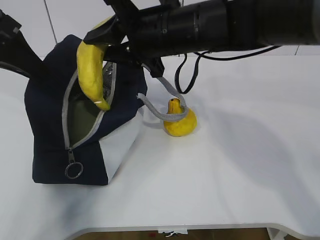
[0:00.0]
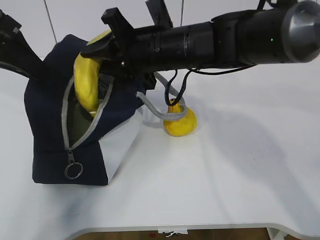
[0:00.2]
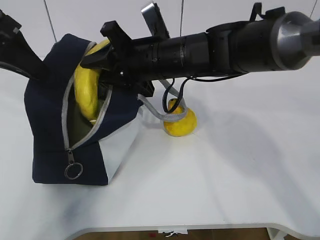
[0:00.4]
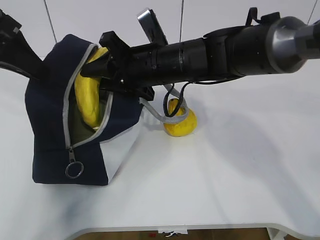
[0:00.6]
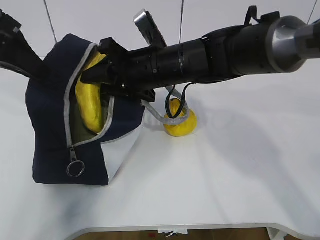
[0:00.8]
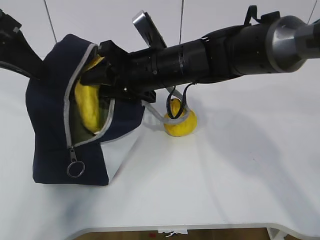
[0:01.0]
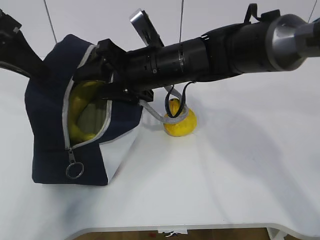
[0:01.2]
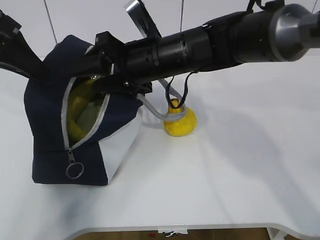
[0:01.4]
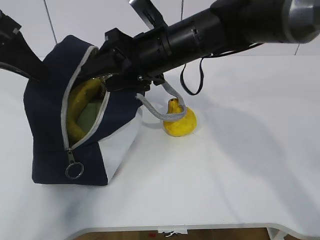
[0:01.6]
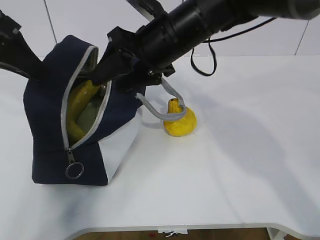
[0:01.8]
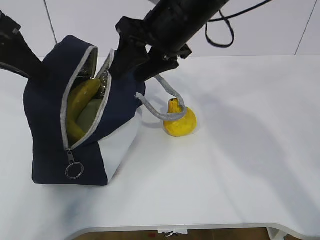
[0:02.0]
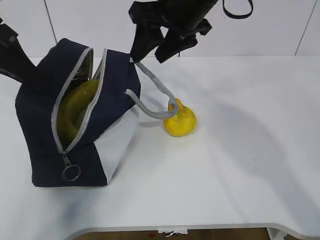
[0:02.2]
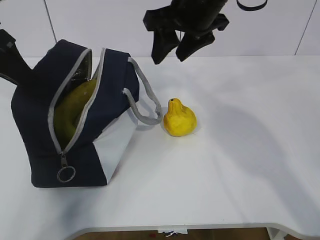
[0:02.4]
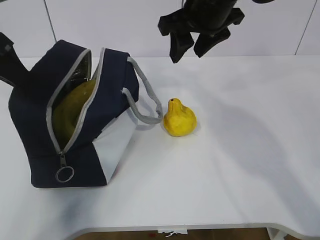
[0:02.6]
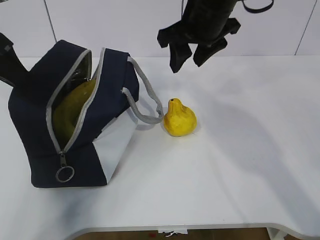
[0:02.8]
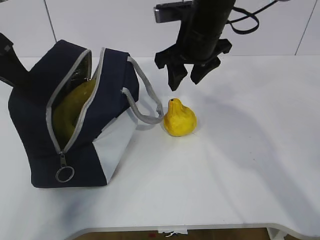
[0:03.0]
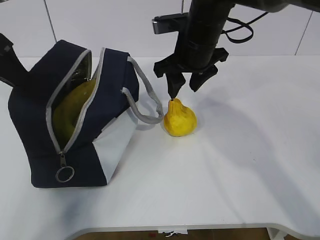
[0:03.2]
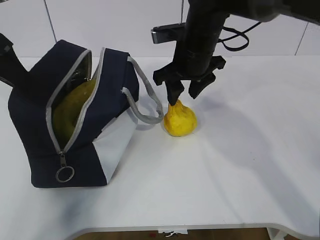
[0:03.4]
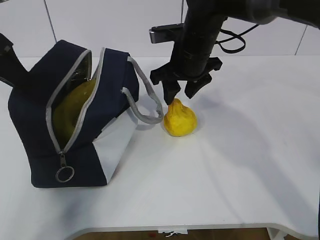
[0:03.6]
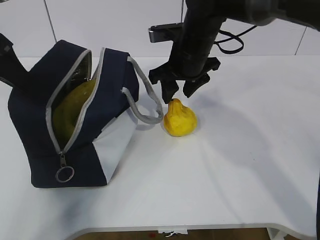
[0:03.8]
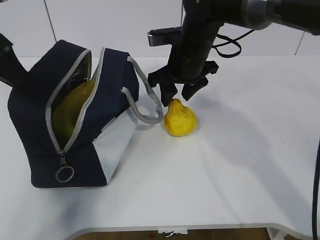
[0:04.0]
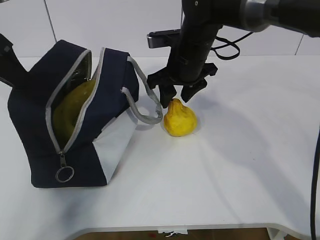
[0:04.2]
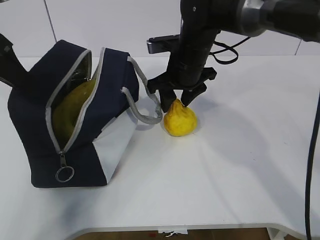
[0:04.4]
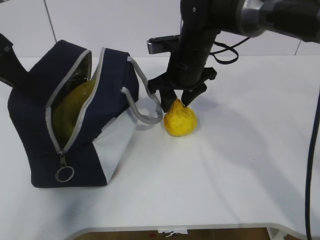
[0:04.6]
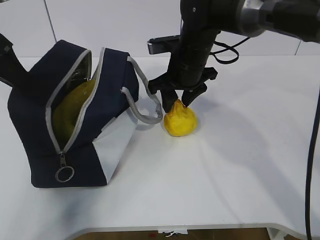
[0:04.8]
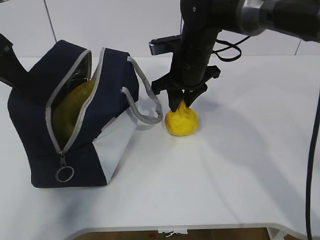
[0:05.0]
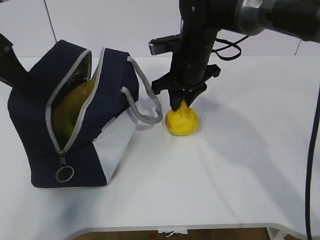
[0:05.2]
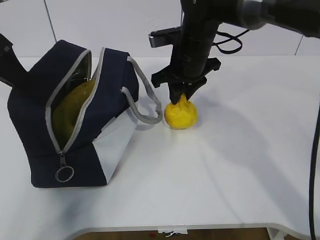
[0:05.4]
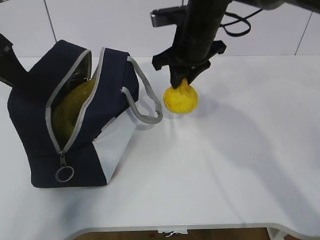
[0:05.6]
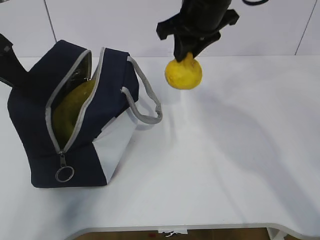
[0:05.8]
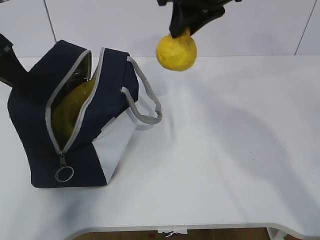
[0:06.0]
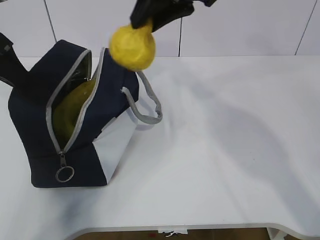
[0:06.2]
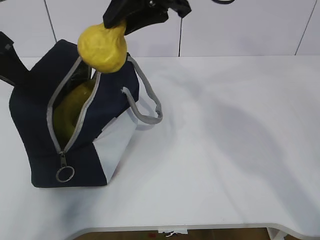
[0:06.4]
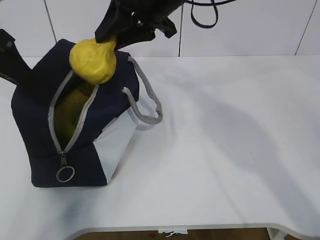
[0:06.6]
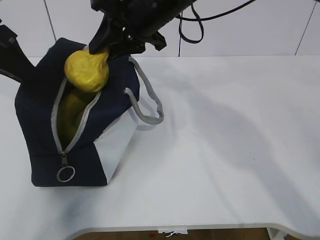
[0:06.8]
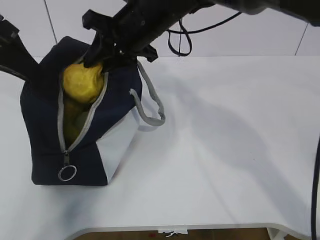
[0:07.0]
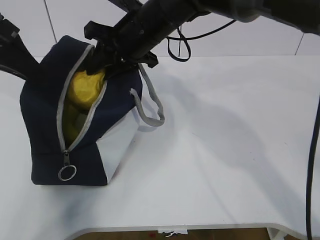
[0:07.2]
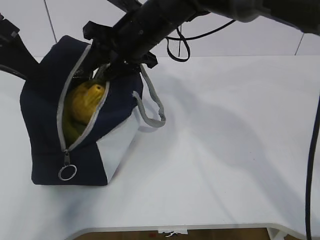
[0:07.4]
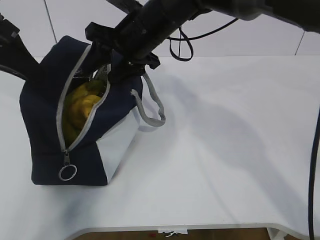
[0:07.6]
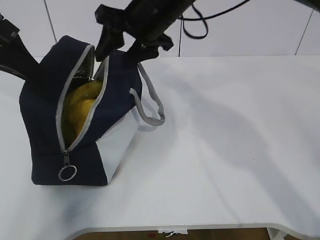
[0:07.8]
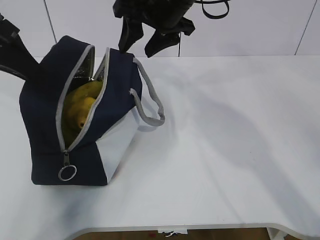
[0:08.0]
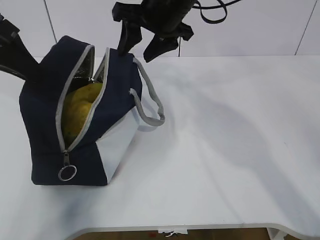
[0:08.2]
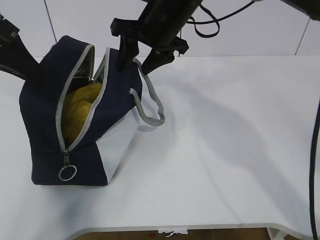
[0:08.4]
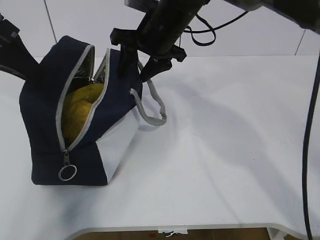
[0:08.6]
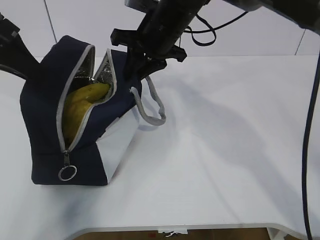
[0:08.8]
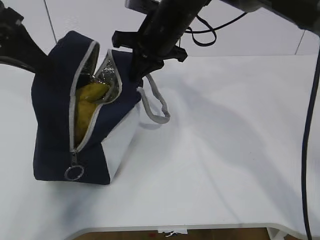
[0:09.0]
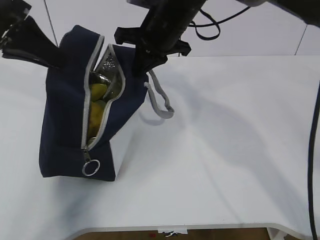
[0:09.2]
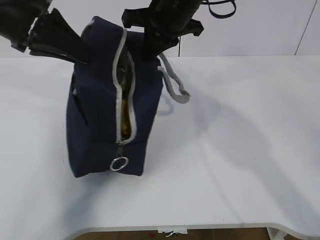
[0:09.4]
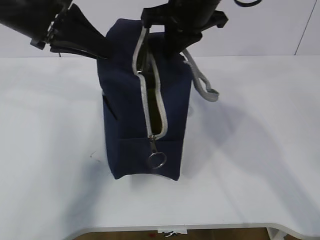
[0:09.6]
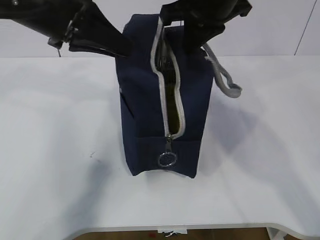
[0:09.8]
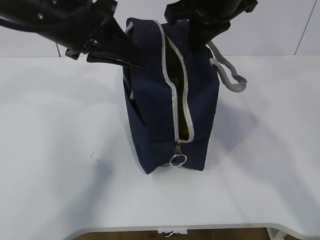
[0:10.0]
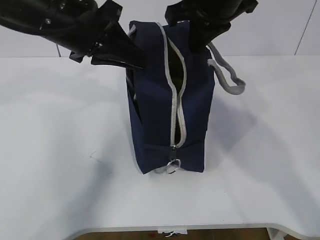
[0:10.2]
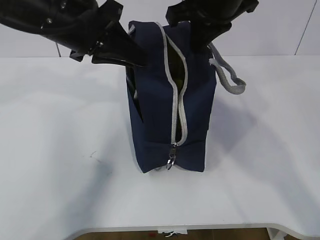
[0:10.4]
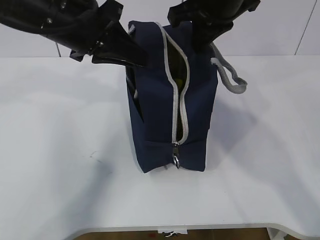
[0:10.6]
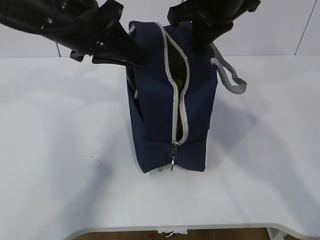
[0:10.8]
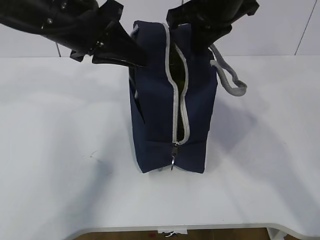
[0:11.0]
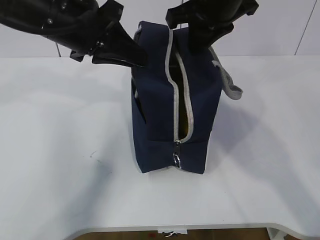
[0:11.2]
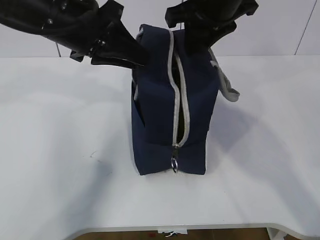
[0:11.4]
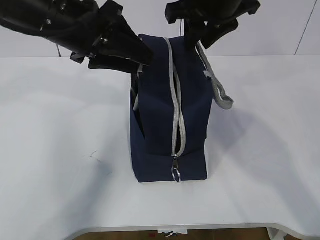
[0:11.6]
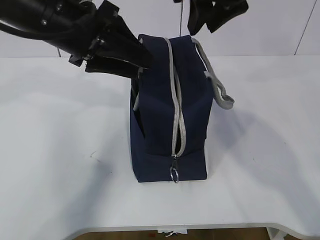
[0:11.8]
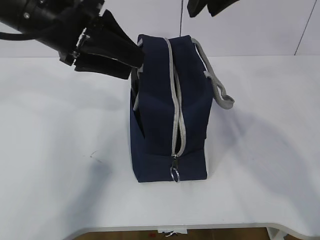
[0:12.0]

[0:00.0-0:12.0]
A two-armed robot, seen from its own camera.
Step, 0:01.6 to 0:05.0: Grasp the pear with the right gripper.
Step, 0:05.2 to 0:07.6: Place the pear into the package with the right gripper.
0:00.0 to 0:01.6: The right gripper opens its fingers.
0:01.6 to 0:03.0: The right gripper travels to the right by roughly 5 cm.
0:03.0 to 0:04.4: The right gripper is displaced downward by roughly 5 cm.
0:04.4 to 0:06.0: The right gripper goes about 15 cm upward.
0:06.0 to 0:07.6: The right gripper moves downward and to the left, about 15 cm, and opens its fingers.
0:07.6 to 0:09.0: The right gripper closes.
0:09.0 to 0:10.4: The left gripper moves to the right, about 10 cm; the right gripper heads upward, to the right and backward, covering some 10 cm.
0:10.4 to 0:12.0: The left gripper opens; the right gripper moves upward, some 5 cm, and opens its fingers.

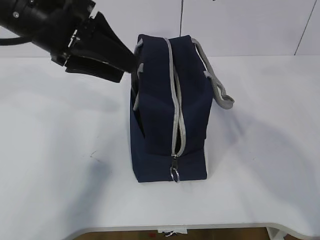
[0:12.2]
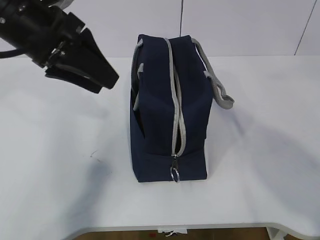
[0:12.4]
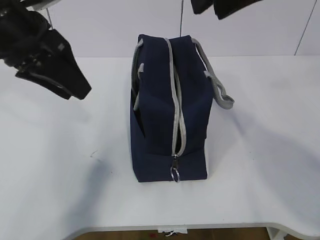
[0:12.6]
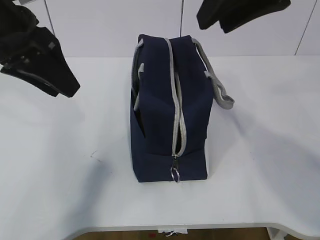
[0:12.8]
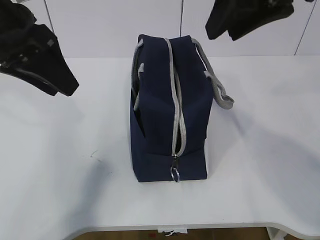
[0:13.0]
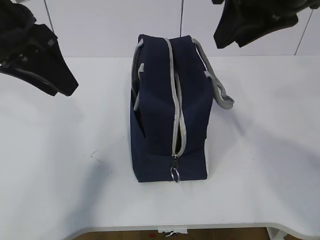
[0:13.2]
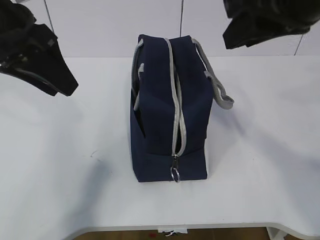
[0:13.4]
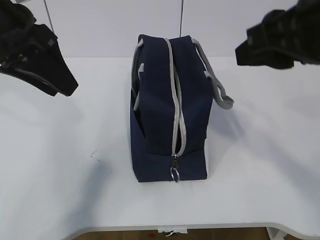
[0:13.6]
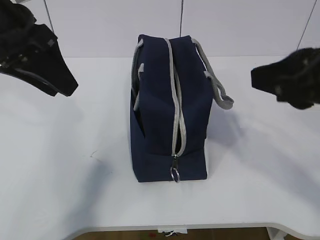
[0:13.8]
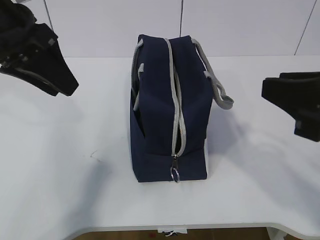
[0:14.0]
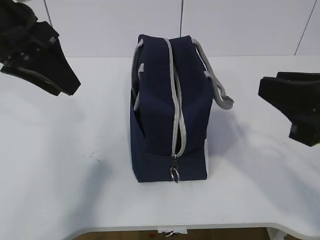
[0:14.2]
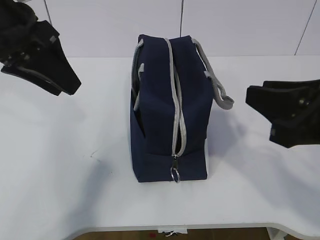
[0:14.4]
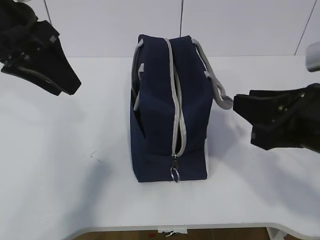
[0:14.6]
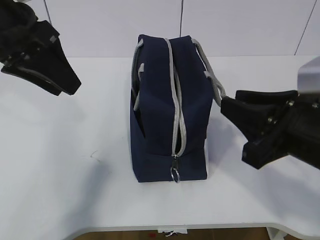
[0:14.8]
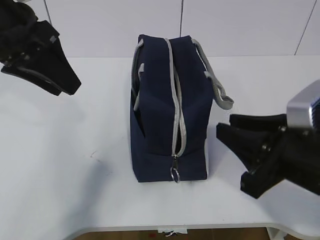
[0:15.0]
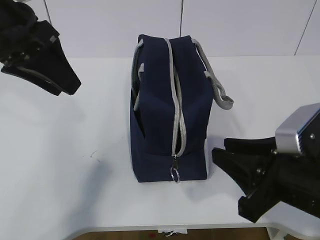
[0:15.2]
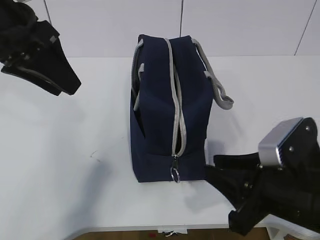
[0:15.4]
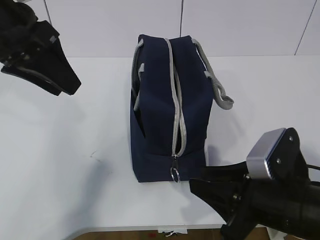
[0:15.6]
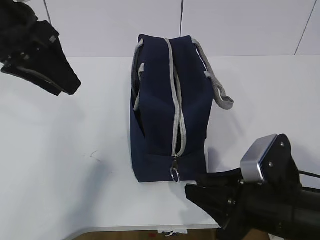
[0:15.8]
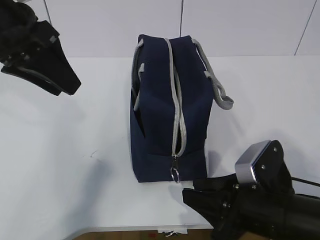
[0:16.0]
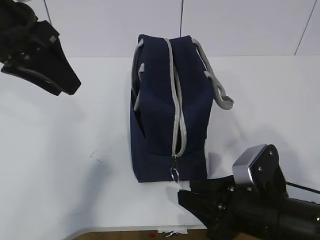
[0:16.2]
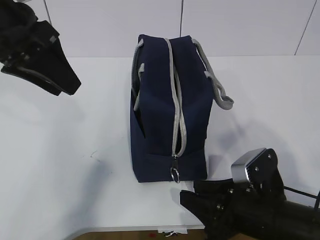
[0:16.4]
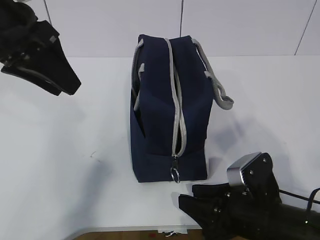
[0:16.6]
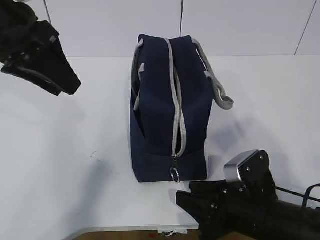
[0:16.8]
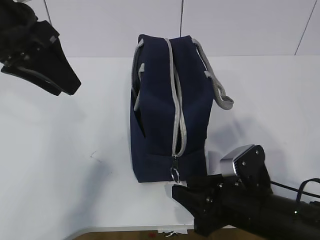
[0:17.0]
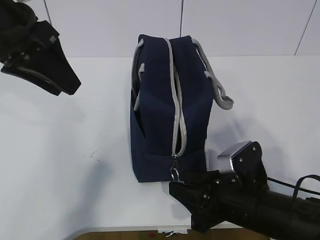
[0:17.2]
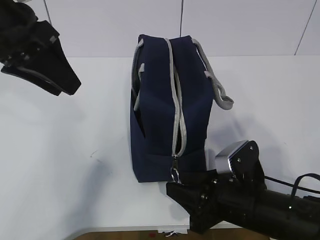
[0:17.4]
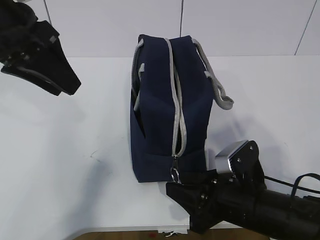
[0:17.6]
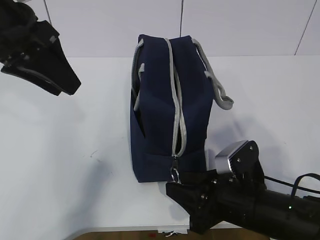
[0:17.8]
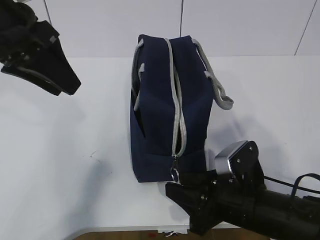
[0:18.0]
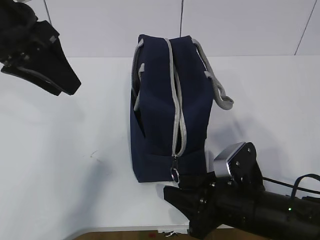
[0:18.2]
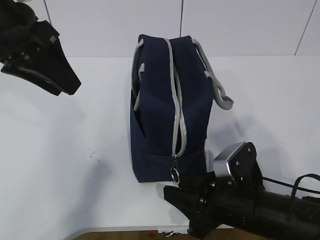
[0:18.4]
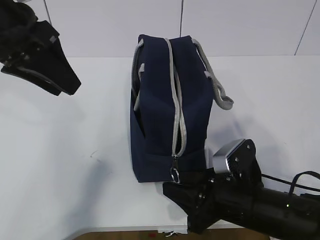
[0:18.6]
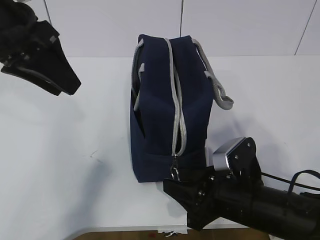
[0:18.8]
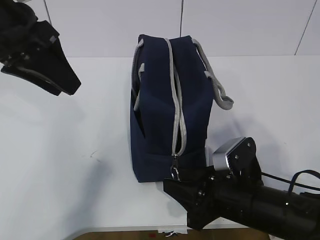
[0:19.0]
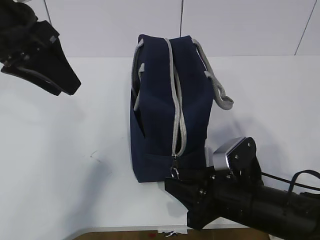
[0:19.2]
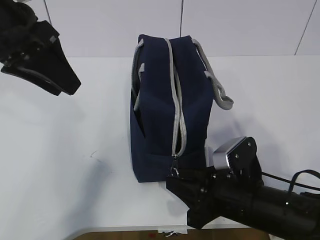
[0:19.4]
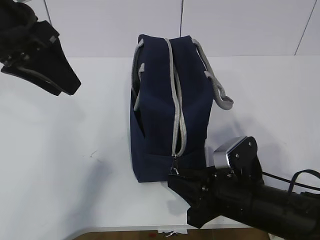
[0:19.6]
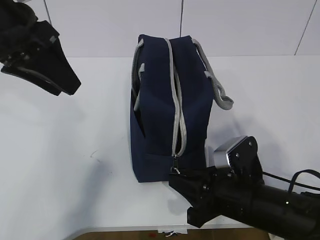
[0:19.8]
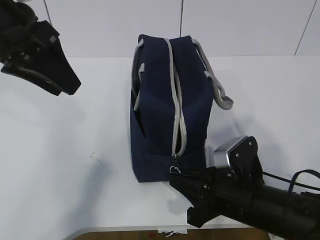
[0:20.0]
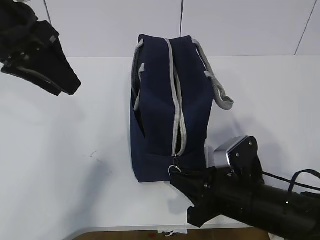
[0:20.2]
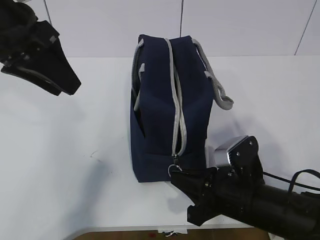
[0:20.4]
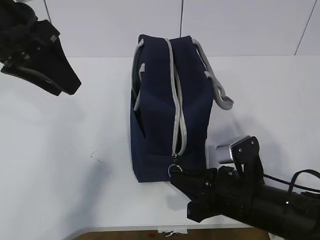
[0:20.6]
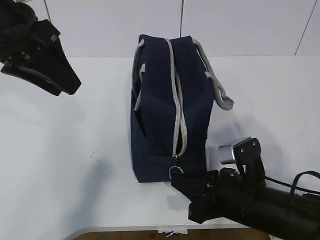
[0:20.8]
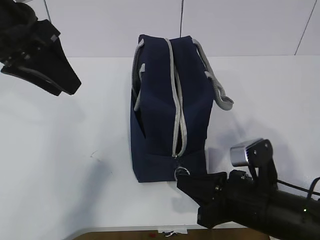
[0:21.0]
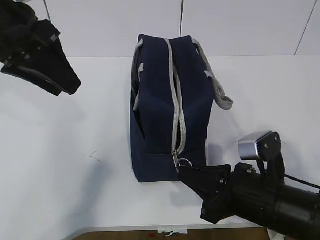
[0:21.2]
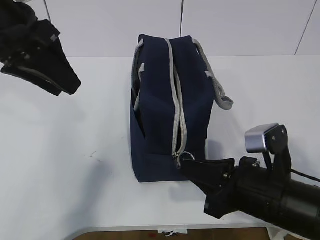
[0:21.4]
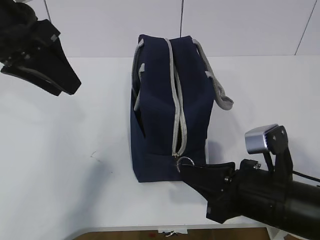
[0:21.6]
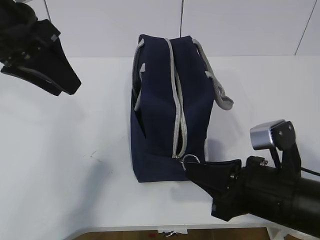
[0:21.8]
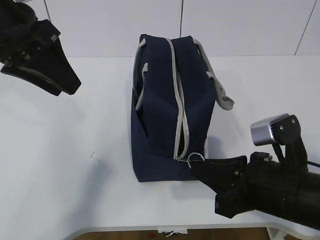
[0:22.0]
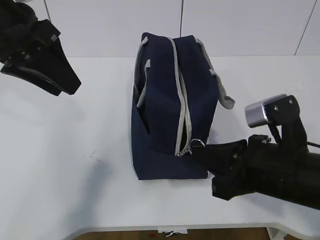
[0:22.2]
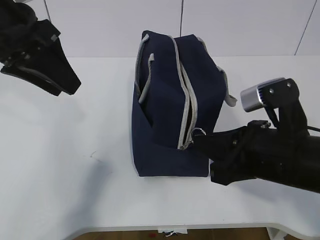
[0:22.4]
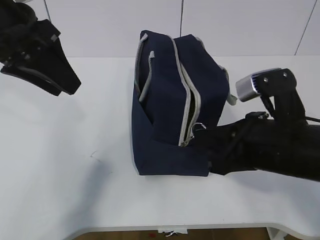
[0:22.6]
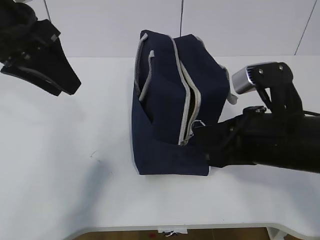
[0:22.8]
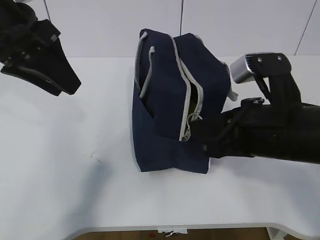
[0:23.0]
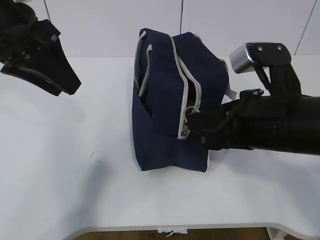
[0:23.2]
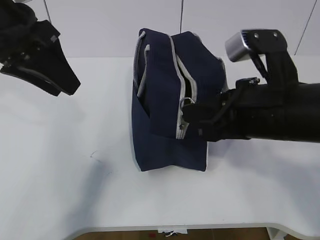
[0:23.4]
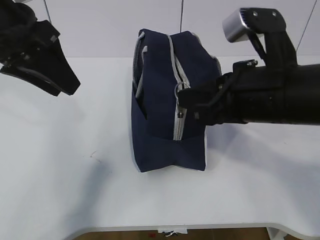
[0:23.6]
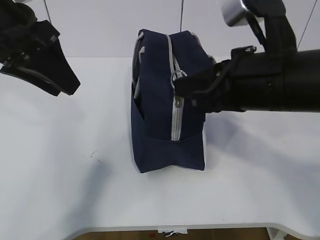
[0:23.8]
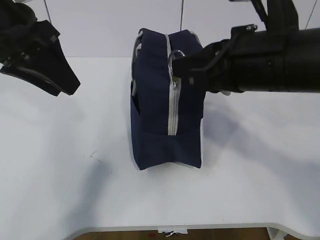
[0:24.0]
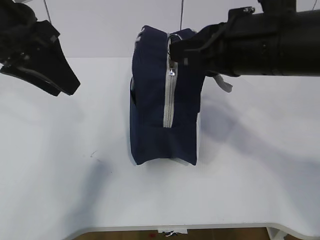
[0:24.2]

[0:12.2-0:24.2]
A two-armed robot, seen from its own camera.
0:12.2 to 0:13.8: The right gripper goes some 20 cm backward, downward and to the right.
0:13.8 to 0:15.2: The right gripper goes approximately 15 cm downward.
0:15.2 to 0:16.6: The right gripper travels downward by about 10 cm.
0:16.6 to 0:18.2: There are only small adjustments of the grippers.
0:18.2 to 0:19.8: The right gripper closes up.
0:19.8 to 0:21.2: There are only small adjustments of the grippers.
0:21.2 to 0:22.6: The right gripper shifts approximately 10 cm upward.
0:22.6 to 0:24.2: The right gripper goes some 10 cm upward.
